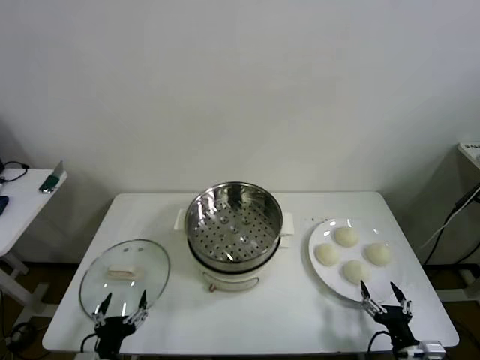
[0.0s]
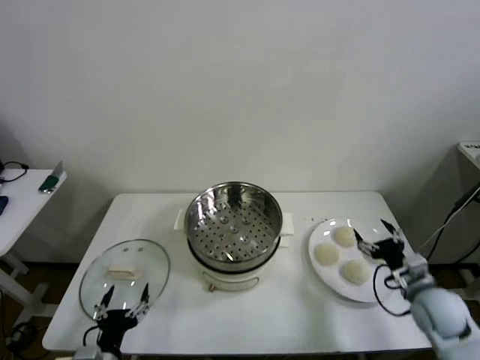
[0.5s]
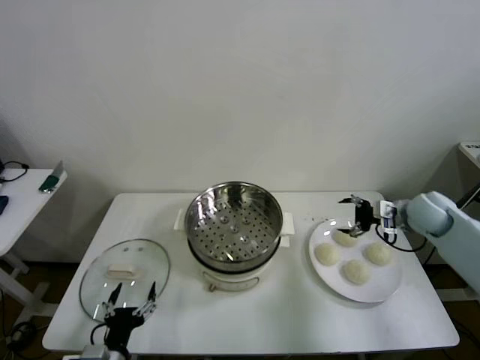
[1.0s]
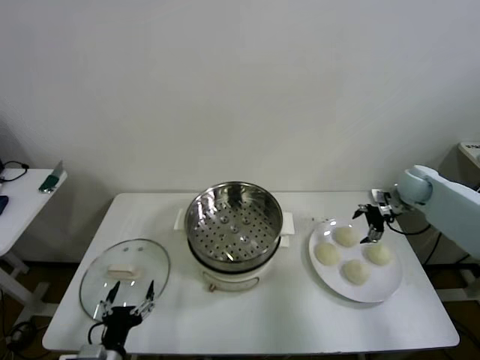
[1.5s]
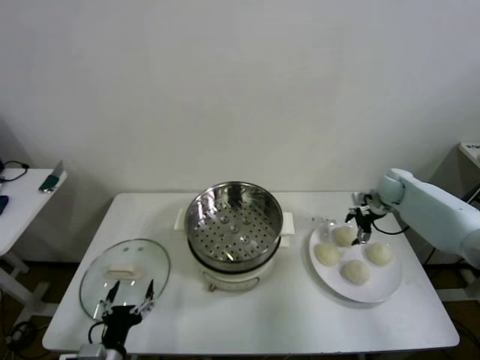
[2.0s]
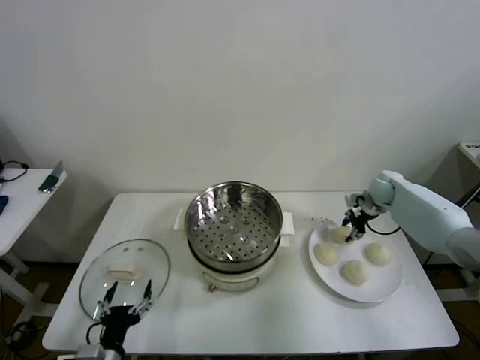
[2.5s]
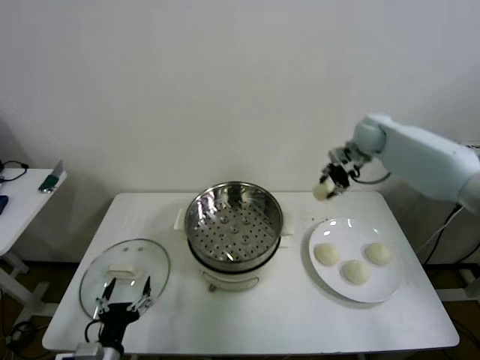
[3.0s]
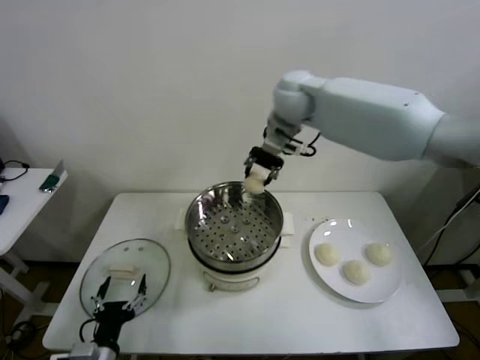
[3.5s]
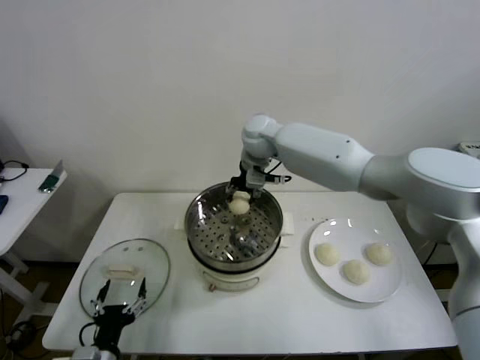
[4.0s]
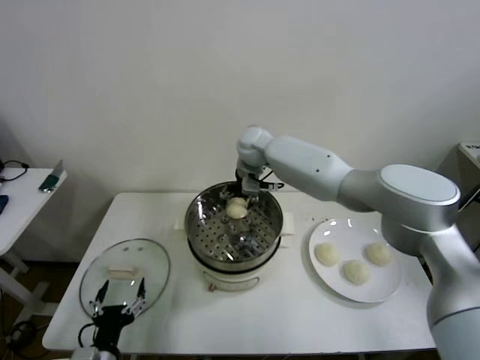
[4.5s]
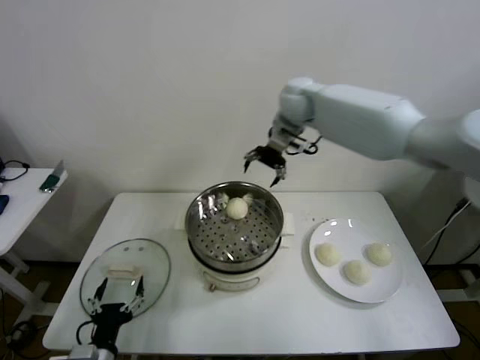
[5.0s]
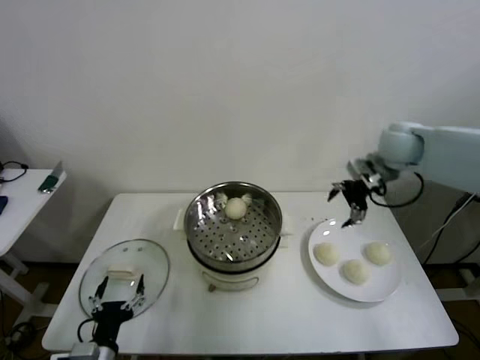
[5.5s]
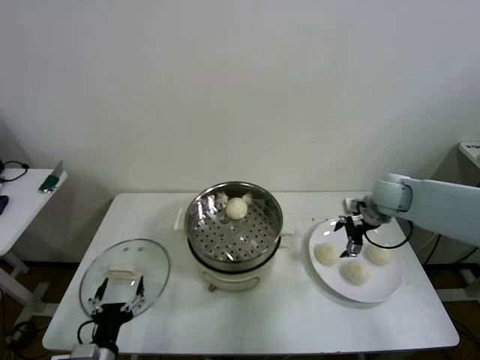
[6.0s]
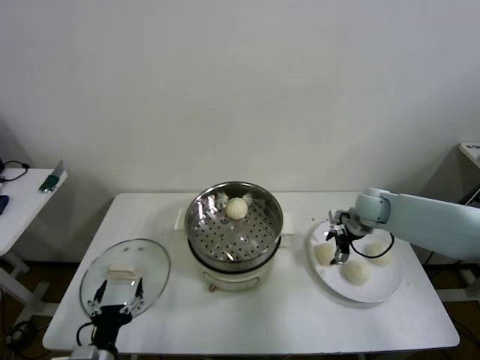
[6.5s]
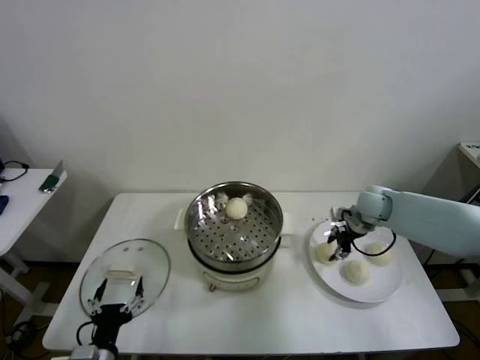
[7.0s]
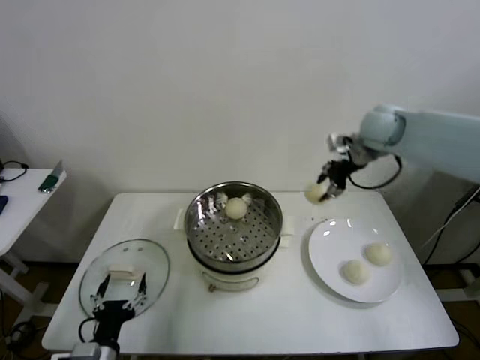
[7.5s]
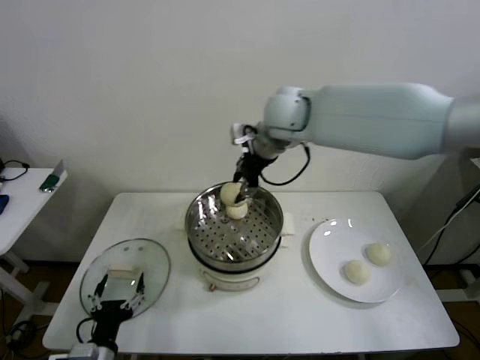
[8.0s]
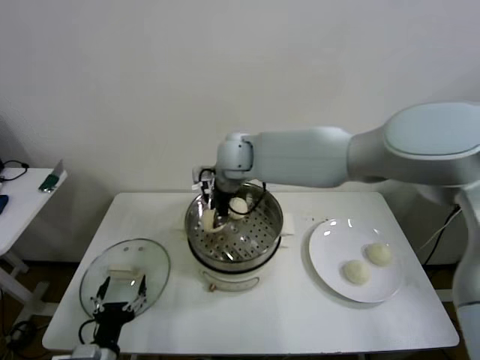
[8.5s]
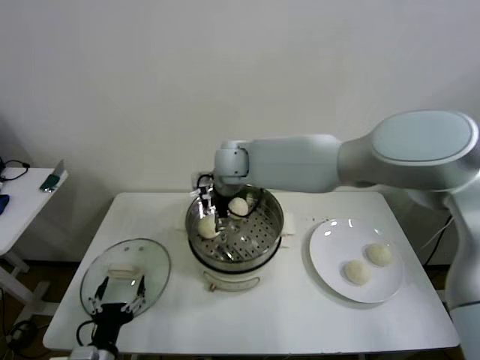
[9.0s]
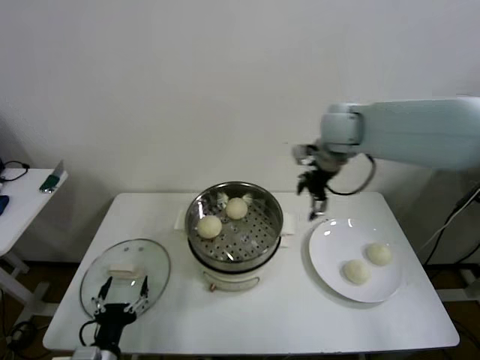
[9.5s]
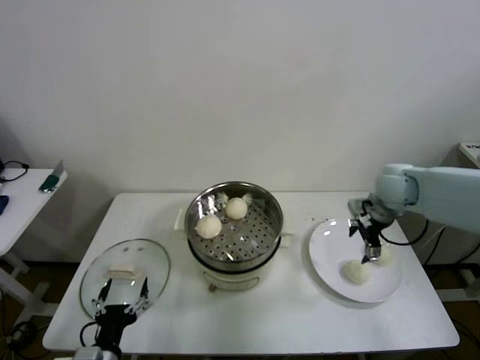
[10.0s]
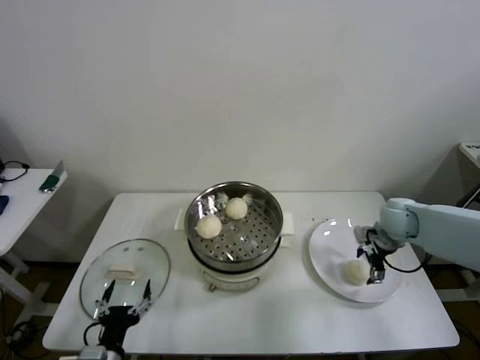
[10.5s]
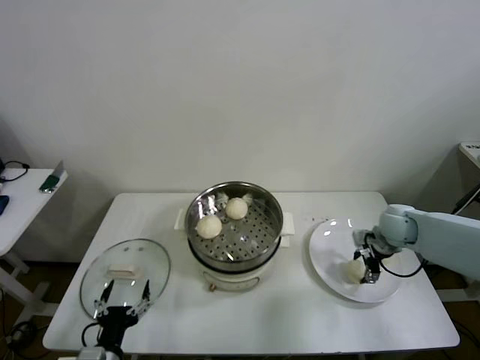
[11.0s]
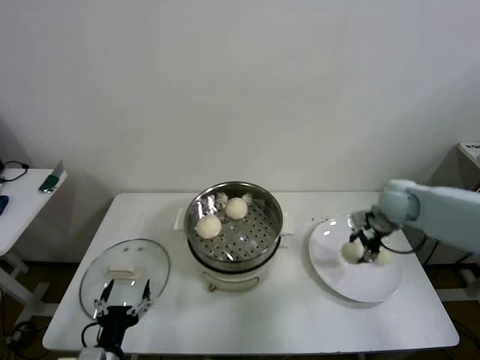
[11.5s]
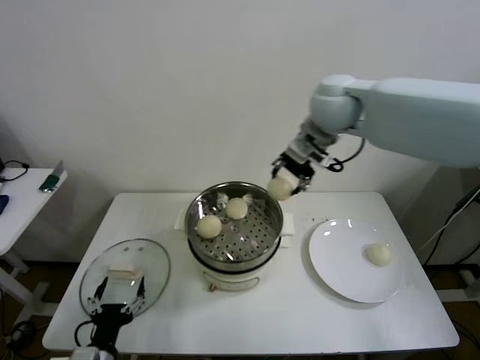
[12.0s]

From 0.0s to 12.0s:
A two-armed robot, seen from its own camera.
Step, from 0.0s to 2.0s: Grasp the baozi in the plate with right gripper.
Step, from 3.0s to 4.0s: Place the baozi on the steamer with right gripper.
Step, from 5.0s to 6.5s: Grasp the baozi in the plate with right gripper.
Step, from 7.0s to 8.5s: Place the baozi on the steamer with right gripper.
Step, from 9.0s to 11.0s: Grasp the baozi in the plate with right gripper.
From 2.0s to 4.0s: The right gripper moves to the left and upward, roughly 40 cm, and closes its fingers.
From 4.0s to 6.0s: The right gripper shifts some 30 cm to the right, and opens up.
From 6.0s to 8.0s: The right gripper travels to the left and upward by about 35 cm, and closes.
From 8.0s to 10.0s: The right gripper moves to the right and downward, about 30 cm, and opens.
From 10.0s to 12.0s: The right gripper moves to the left and upward, roughly 30 cm, and closes its fingers.

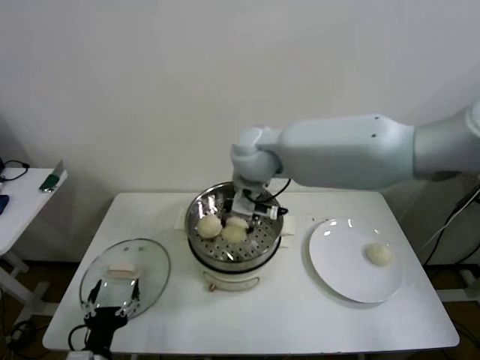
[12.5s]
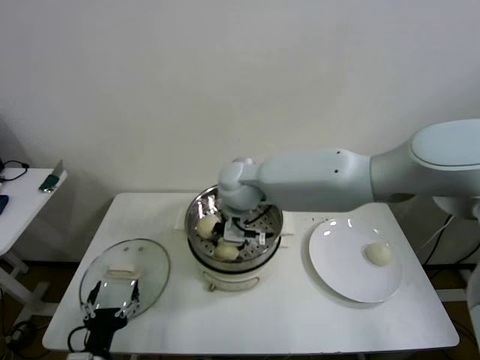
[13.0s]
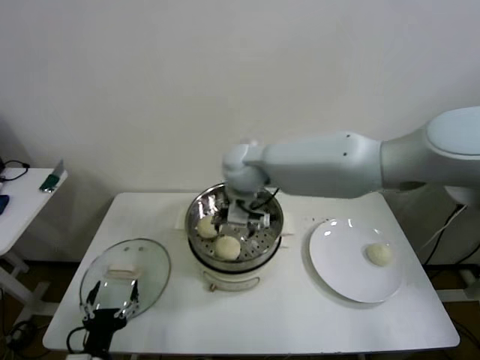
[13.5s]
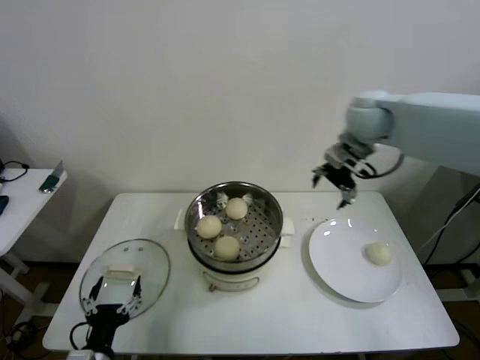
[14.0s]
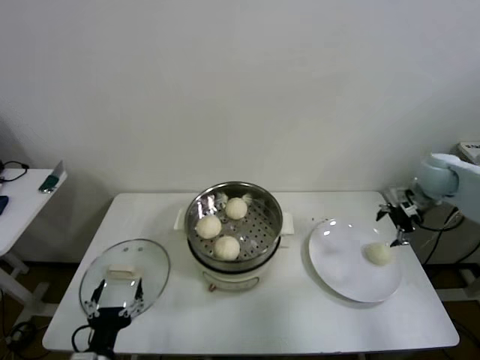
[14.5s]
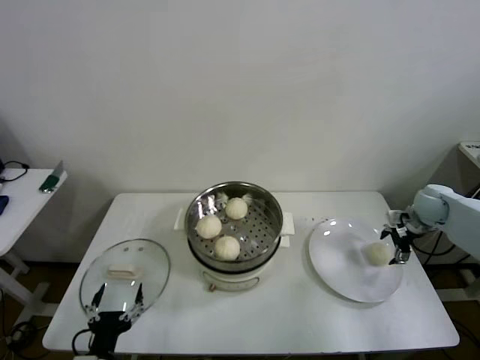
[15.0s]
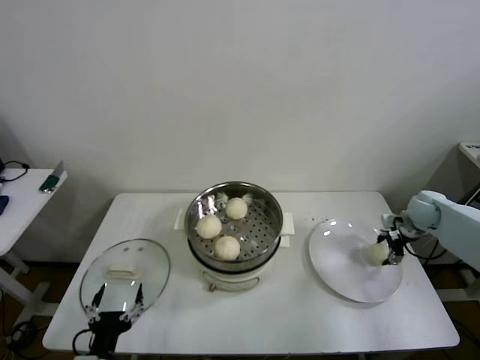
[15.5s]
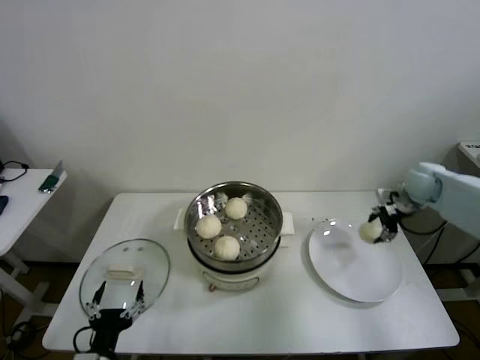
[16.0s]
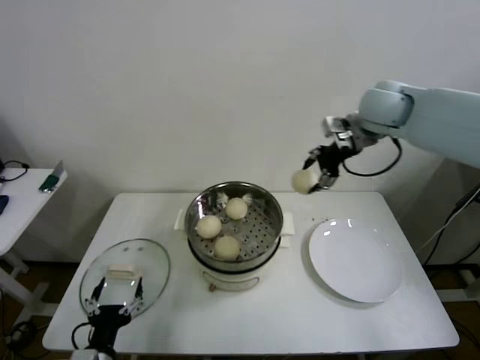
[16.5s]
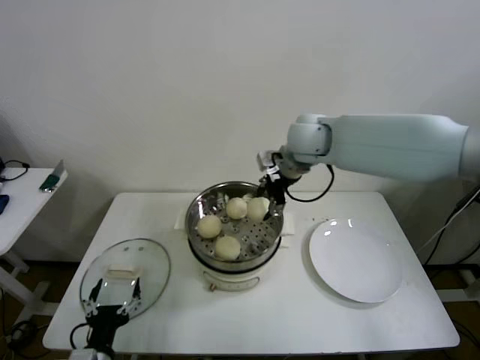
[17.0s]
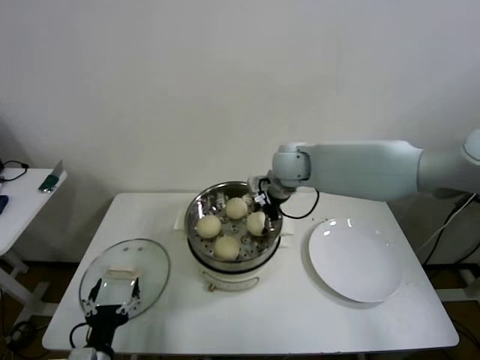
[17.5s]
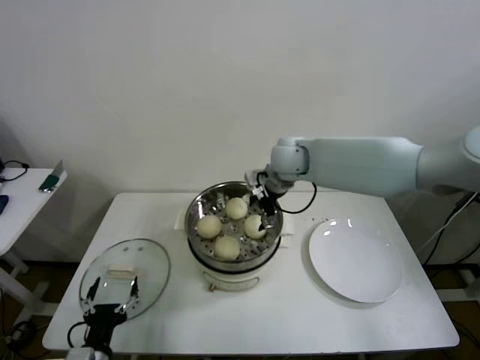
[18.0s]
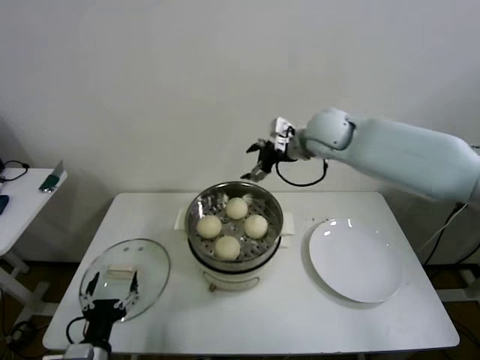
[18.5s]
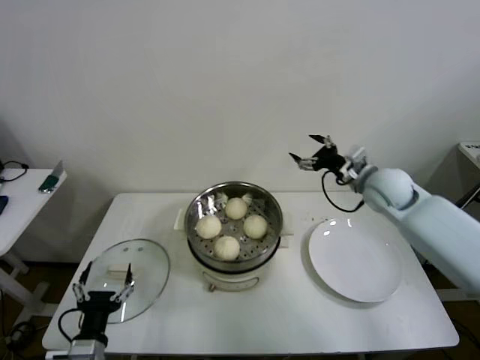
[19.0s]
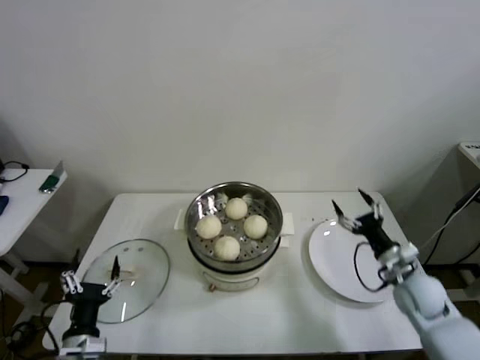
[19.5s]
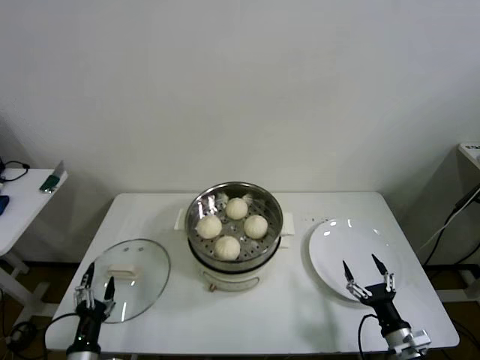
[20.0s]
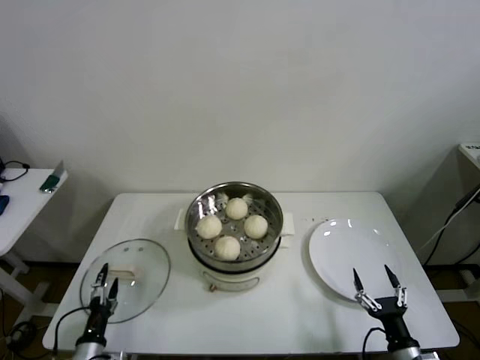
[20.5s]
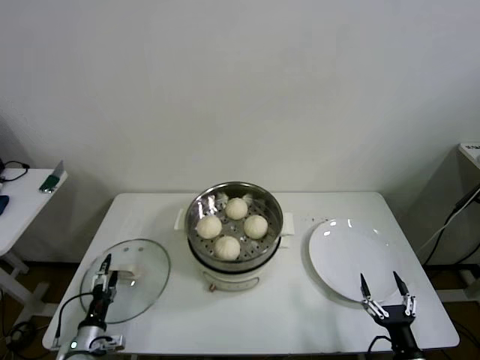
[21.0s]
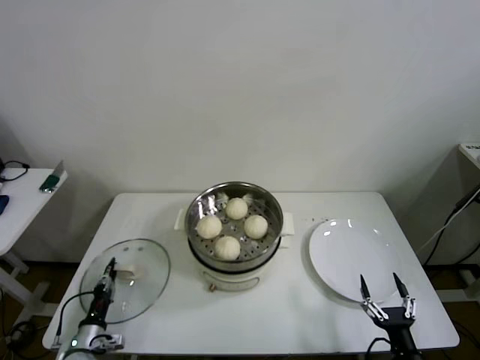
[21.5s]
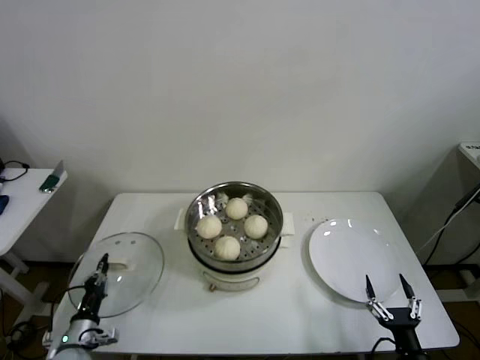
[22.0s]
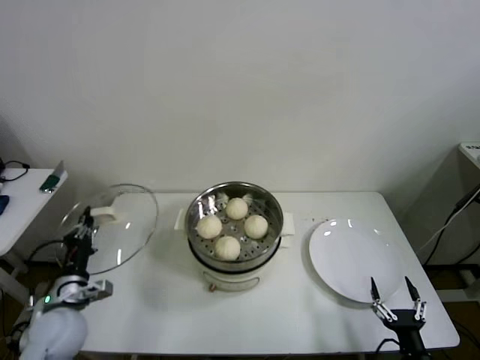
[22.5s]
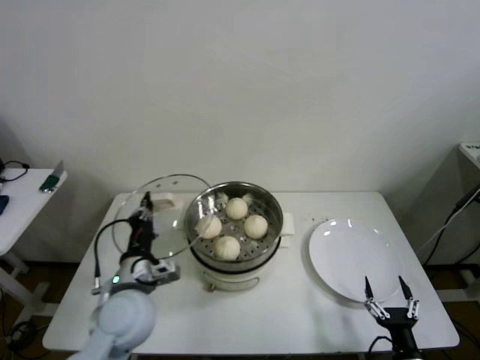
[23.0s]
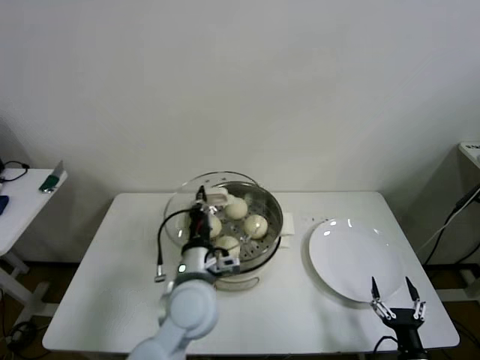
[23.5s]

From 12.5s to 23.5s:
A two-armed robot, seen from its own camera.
Step, from 13.5s to 15.5s: Grasp the baozi in the plate with right gripper.
Step, from 16.0s to 17.5s: Place the baozi on the steamer with right gripper.
Step, from 18.0s to 21.5s: Grasp the pot lid with left gripper.
From 12.5s to 14.5s: The right gripper travels to the right by roughly 40 cm, and opens its fingers.
From 14.5s to 16.0s: The right gripper travels downward and back again, about 10 cm each way, and closes.
From 16.0s to 18.0s: The right gripper moves to the left, approximately 35 cm, and opens up.
From 18.0s to 20.0s: The right gripper heads backward, downward and to the right, covering approximately 50 cm; the left gripper shifts roughly 5 cm downward.
From 20.0s to 21.5s: The left gripper travels downward, forward and to the left by some 15 cm, and closes up. The right gripper goes approximately 5 cm backward.
From 21.5s to 23.5s: The left gripper travels to the right and upward by roughly 40 cm, and closes.

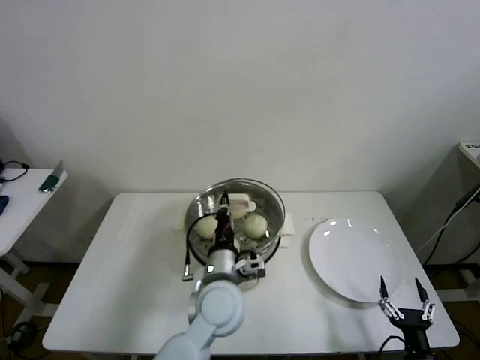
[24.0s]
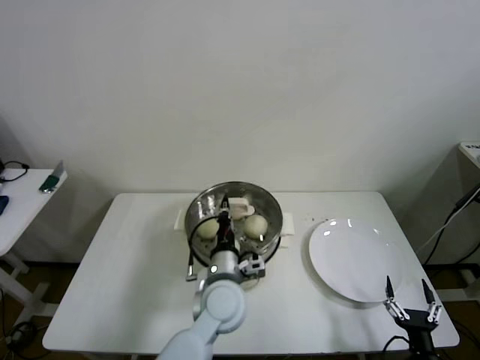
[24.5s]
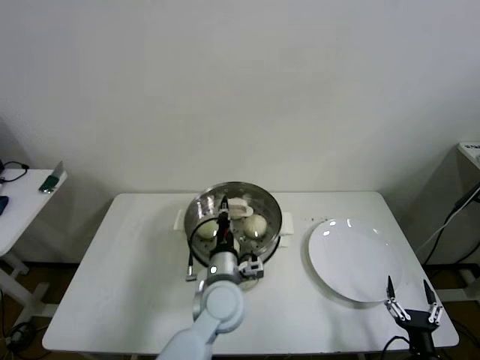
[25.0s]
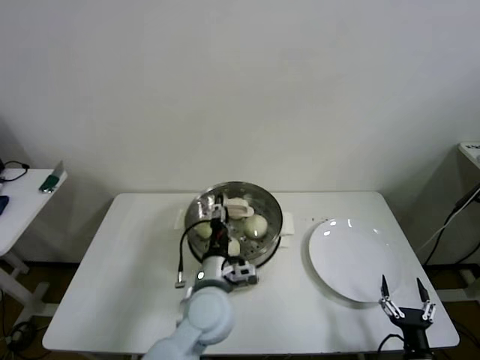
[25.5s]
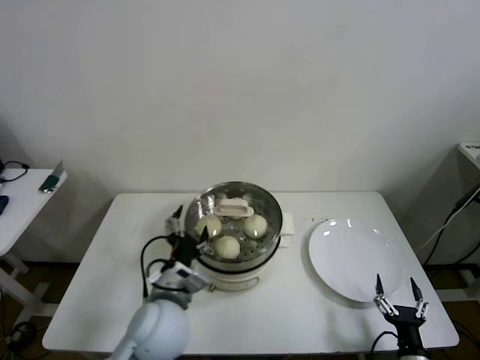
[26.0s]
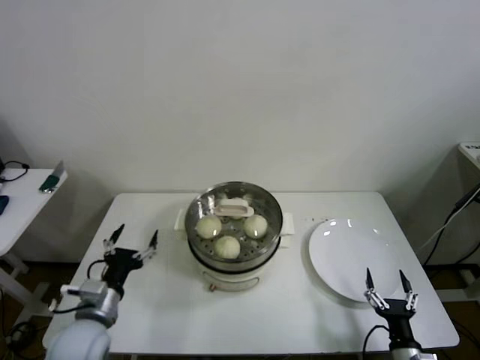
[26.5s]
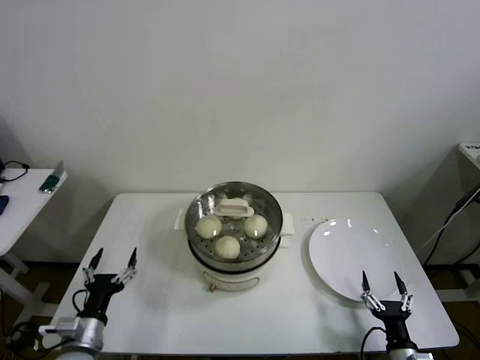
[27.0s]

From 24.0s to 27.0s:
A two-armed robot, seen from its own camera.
From 24.0s to 25.5s: The left gripper opens up.
From 25.5s to 27.0s: The left gripper travels to the left by approximately 30 cm, and opens.
